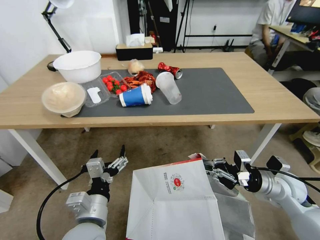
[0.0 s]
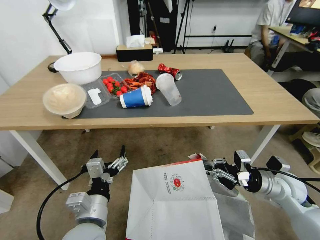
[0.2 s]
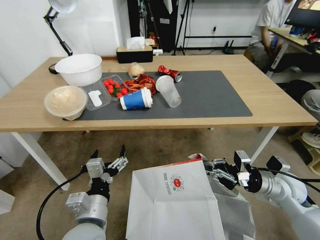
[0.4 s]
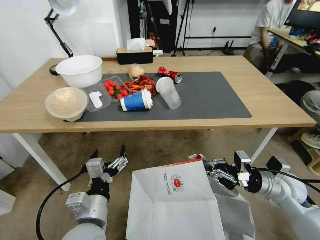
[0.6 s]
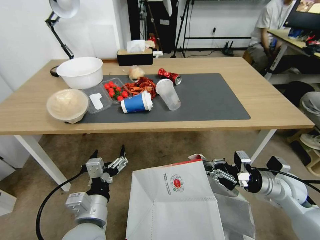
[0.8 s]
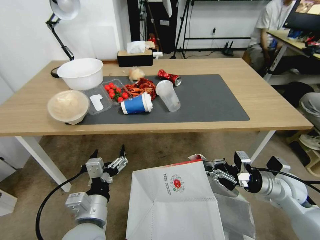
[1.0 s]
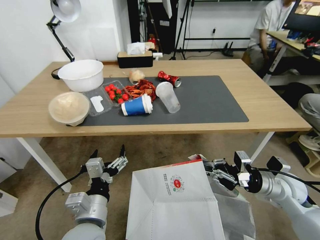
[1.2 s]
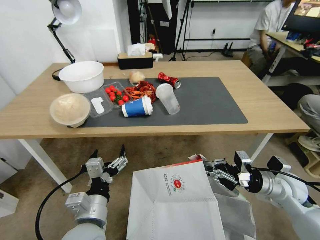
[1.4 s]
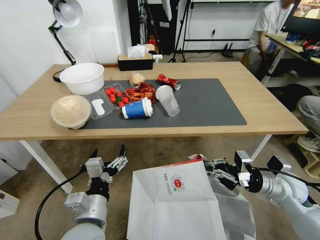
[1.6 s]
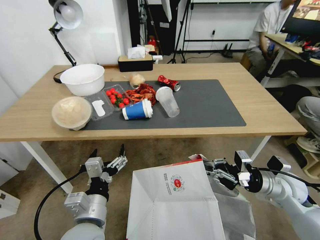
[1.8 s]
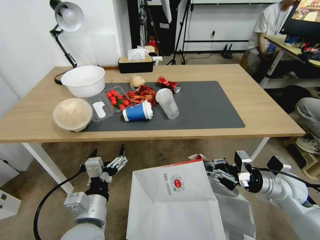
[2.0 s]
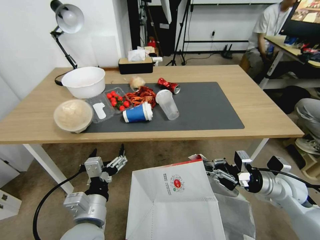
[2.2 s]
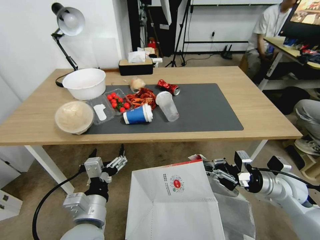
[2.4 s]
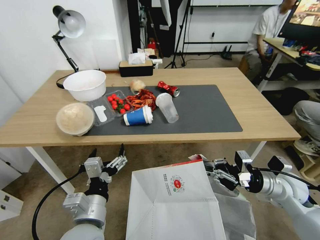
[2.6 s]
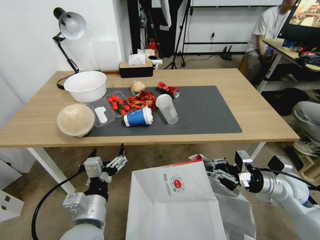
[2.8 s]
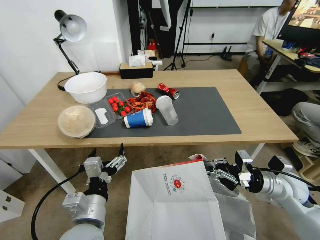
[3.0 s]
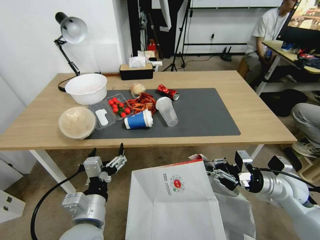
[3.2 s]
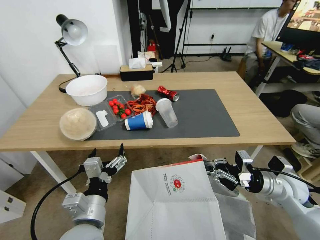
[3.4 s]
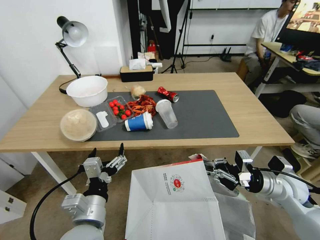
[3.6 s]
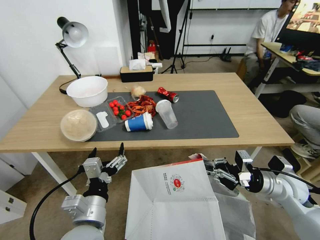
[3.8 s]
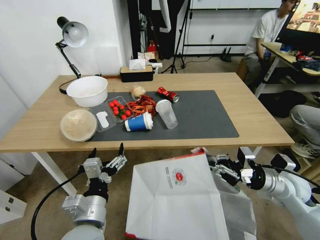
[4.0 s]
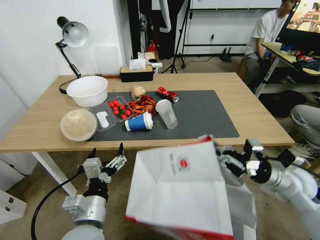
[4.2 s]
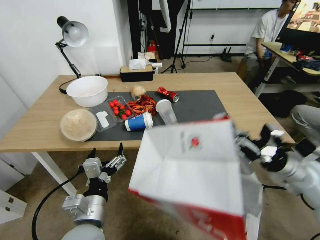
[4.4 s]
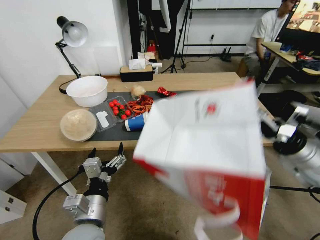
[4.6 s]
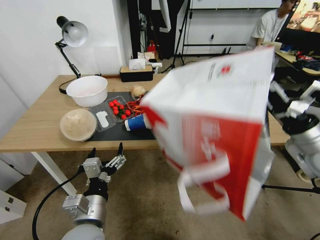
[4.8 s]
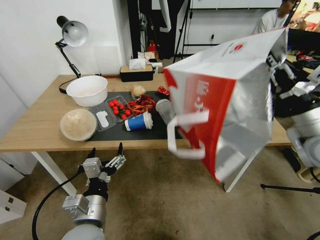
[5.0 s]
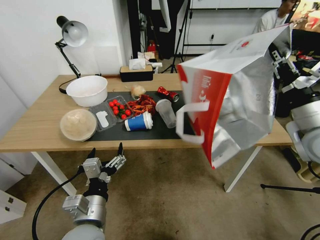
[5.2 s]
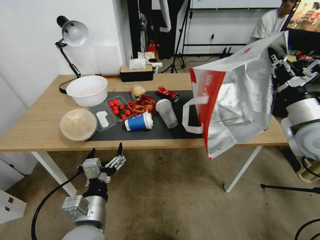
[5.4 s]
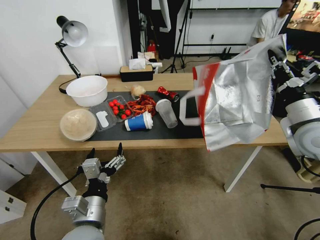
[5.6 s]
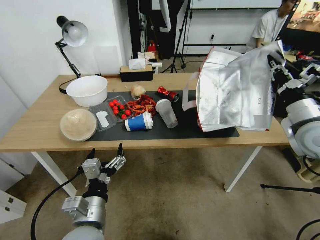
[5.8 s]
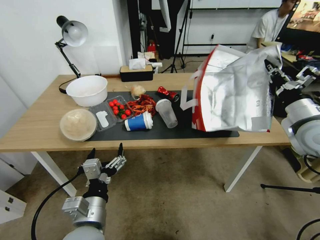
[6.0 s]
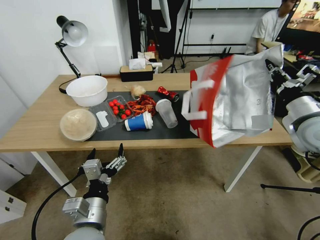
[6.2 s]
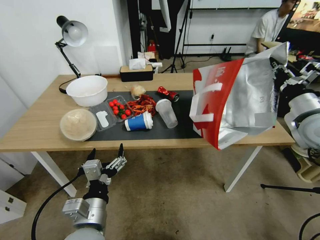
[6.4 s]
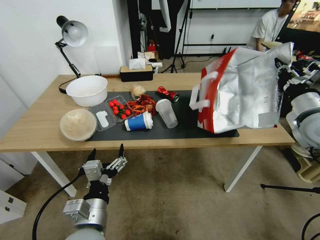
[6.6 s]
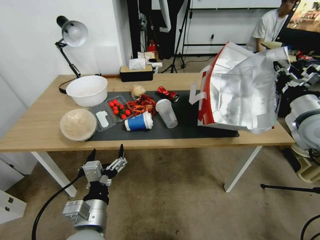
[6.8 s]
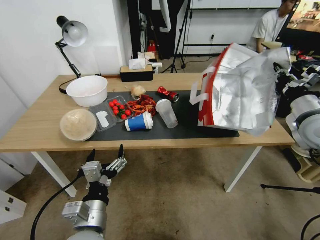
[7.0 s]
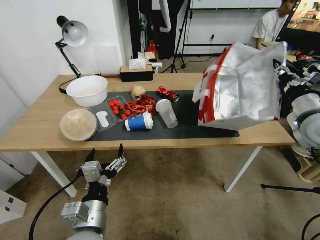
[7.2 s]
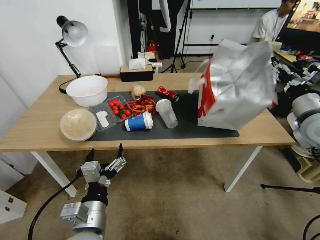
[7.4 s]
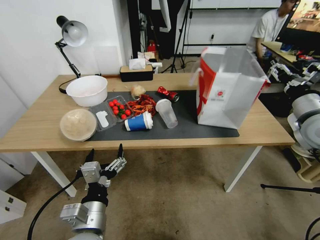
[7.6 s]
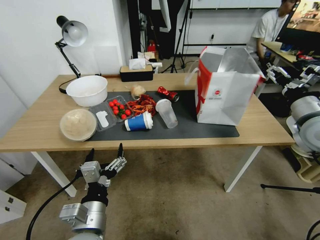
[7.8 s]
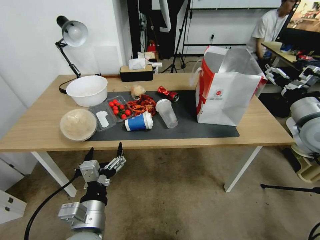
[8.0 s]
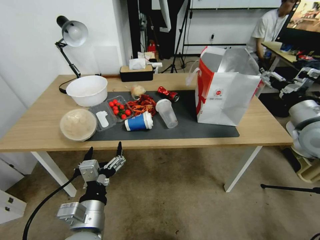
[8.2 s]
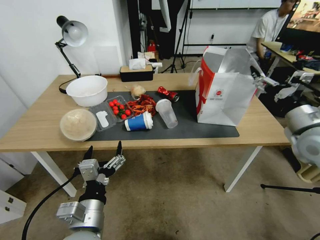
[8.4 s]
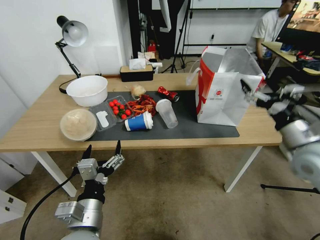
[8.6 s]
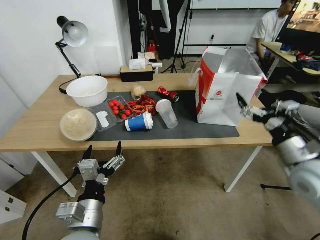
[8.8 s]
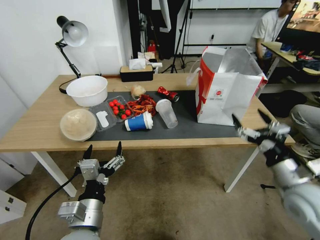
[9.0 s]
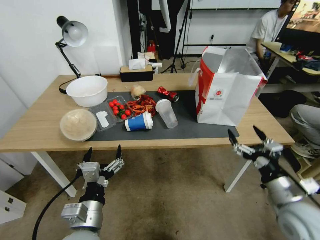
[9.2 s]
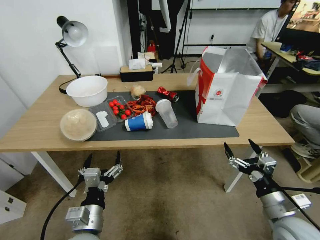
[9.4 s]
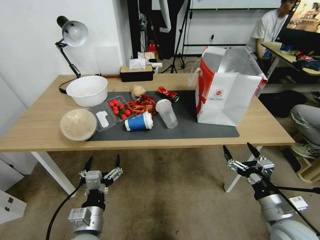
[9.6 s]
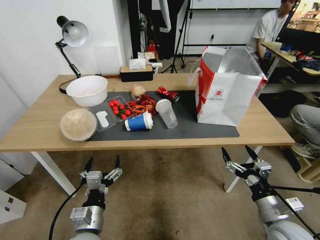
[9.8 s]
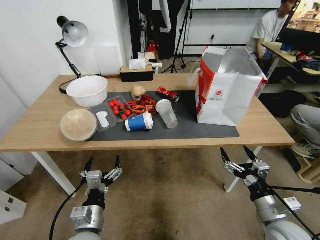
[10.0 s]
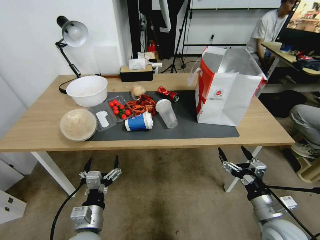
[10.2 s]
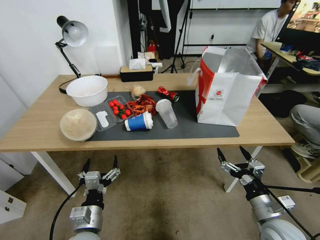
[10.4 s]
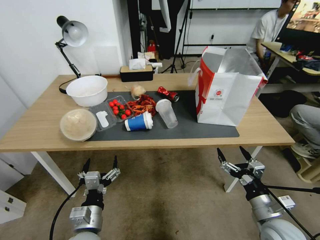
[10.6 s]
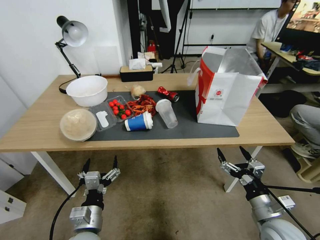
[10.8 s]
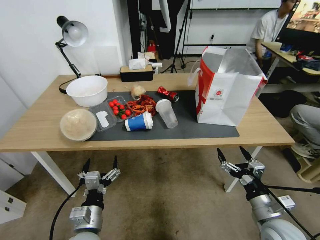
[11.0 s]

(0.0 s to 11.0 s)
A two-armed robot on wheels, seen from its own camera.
Task of the whole recording: Pick up the food delivery bag from the floor and place it on the table.
3.2 s - 4.8 s: The right gripper goes approximately 15 cm upward.
4.8 s - 6.2 s: The right gripper shifts roughly 5 cm forward.
6.2 s - 7.8 s: The right gripper opens its fingers.
7.8 s - 9.4 s: The right gripper is displaced downward and backward by roughly 25 cm, while the left gripper travels downward by approximately 5 cm.
9.4 s - 11.0 s: The grippers make only small movements.

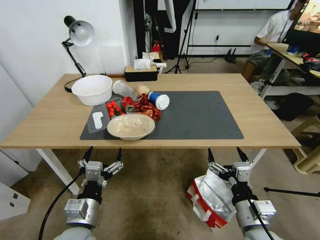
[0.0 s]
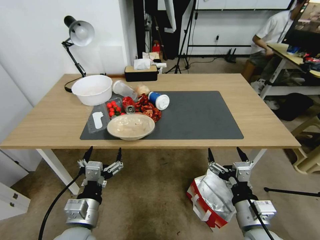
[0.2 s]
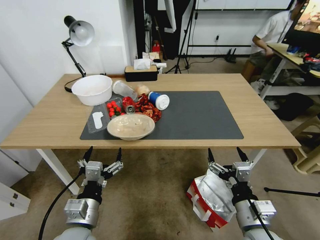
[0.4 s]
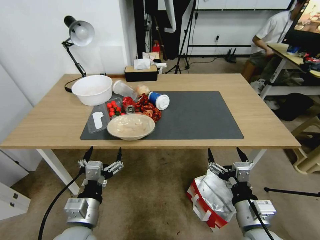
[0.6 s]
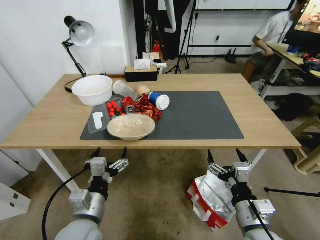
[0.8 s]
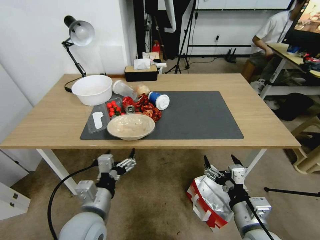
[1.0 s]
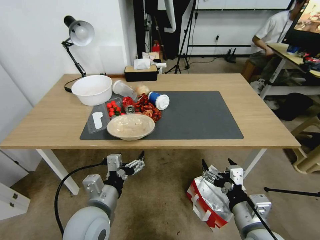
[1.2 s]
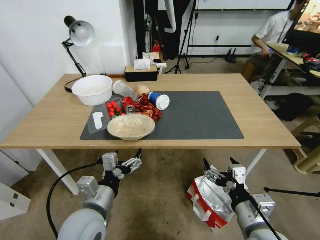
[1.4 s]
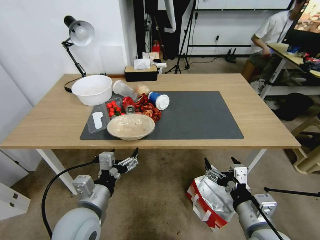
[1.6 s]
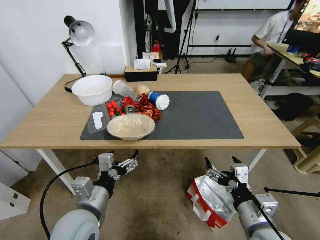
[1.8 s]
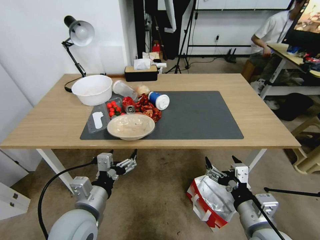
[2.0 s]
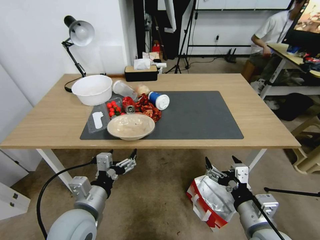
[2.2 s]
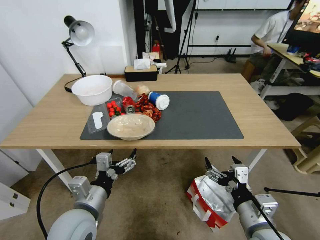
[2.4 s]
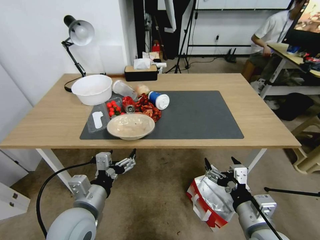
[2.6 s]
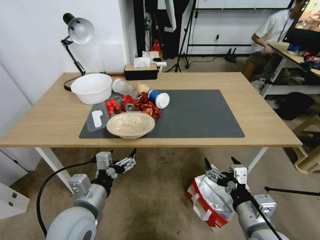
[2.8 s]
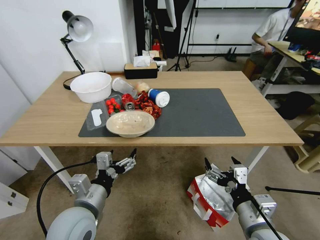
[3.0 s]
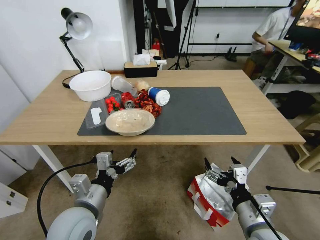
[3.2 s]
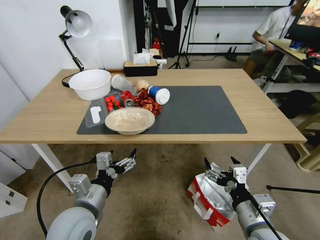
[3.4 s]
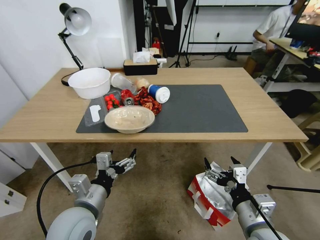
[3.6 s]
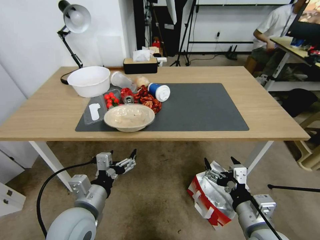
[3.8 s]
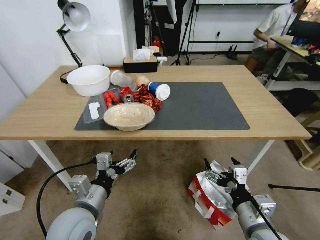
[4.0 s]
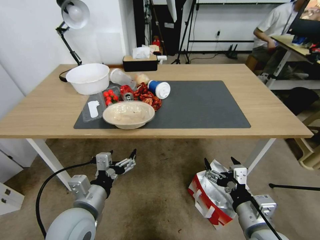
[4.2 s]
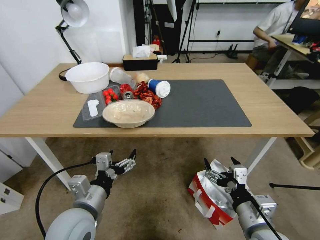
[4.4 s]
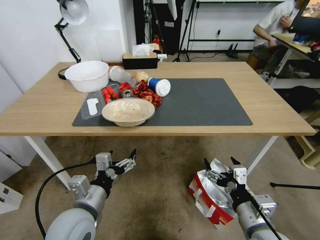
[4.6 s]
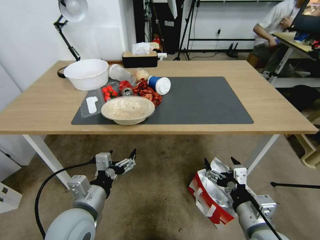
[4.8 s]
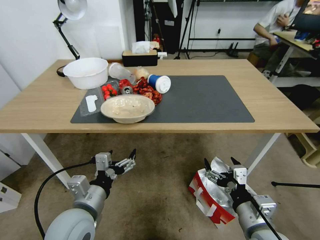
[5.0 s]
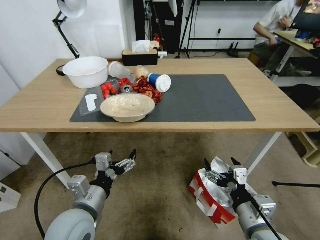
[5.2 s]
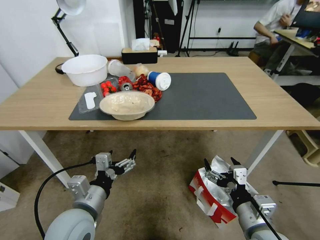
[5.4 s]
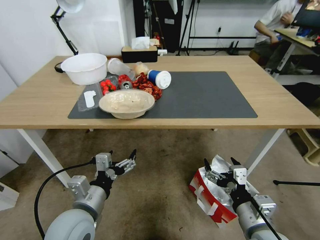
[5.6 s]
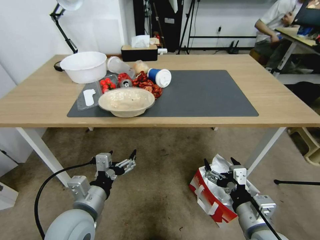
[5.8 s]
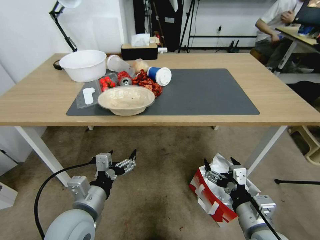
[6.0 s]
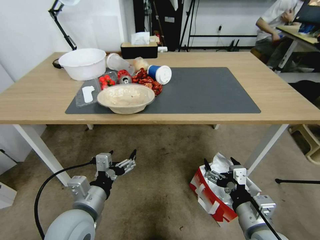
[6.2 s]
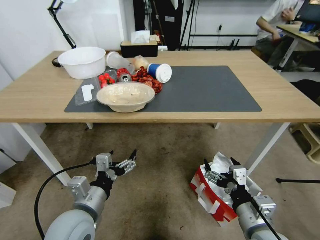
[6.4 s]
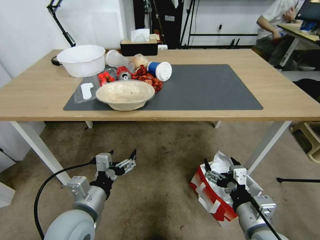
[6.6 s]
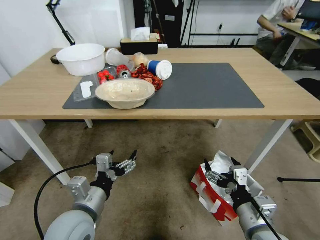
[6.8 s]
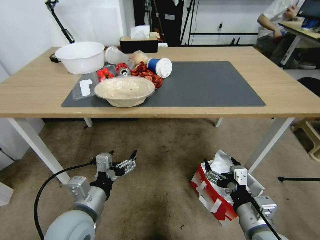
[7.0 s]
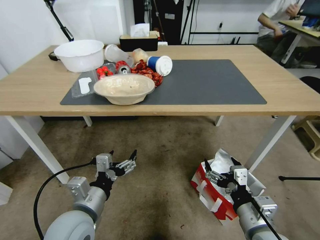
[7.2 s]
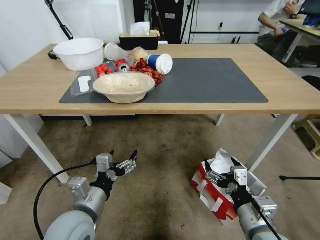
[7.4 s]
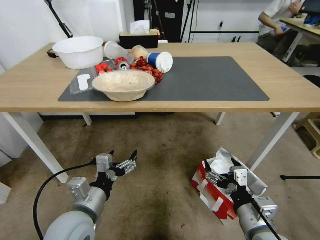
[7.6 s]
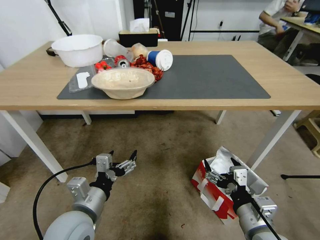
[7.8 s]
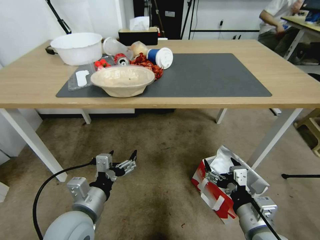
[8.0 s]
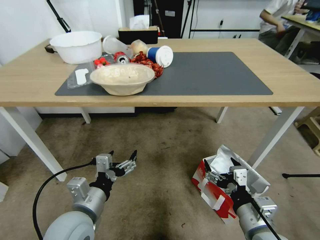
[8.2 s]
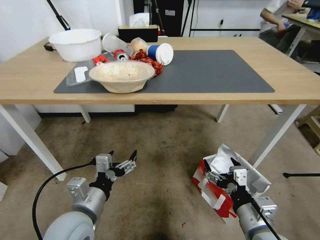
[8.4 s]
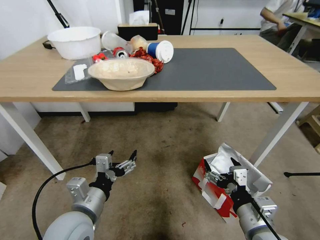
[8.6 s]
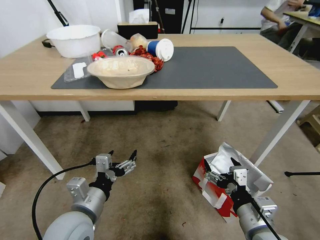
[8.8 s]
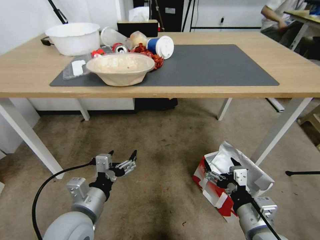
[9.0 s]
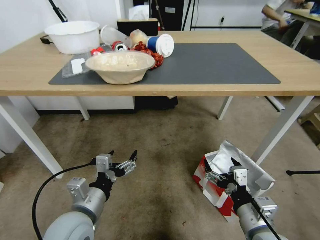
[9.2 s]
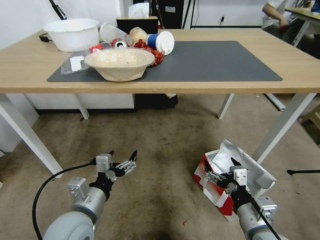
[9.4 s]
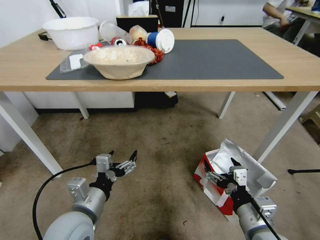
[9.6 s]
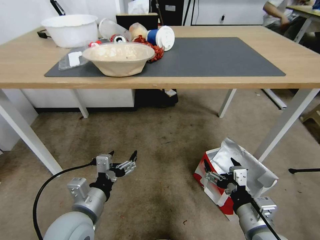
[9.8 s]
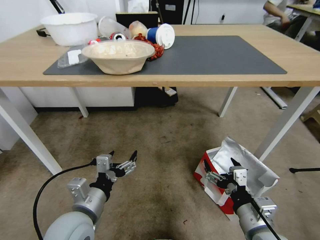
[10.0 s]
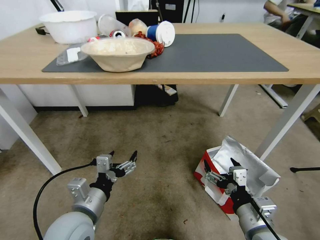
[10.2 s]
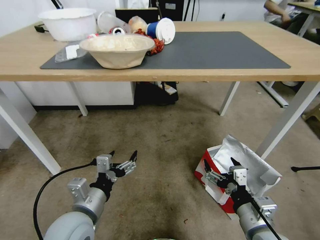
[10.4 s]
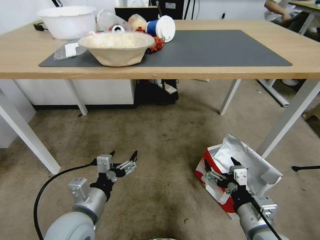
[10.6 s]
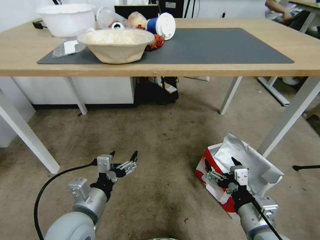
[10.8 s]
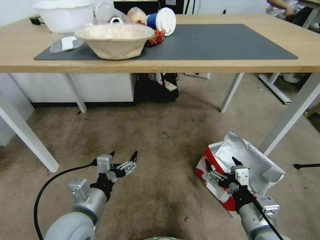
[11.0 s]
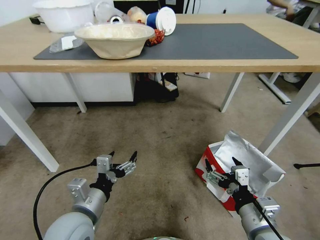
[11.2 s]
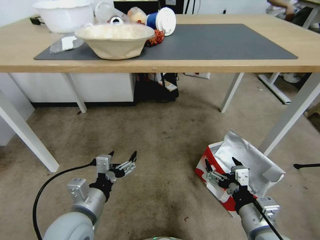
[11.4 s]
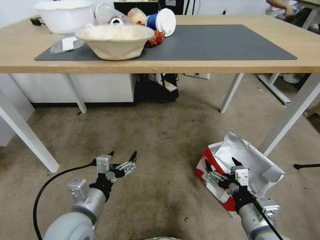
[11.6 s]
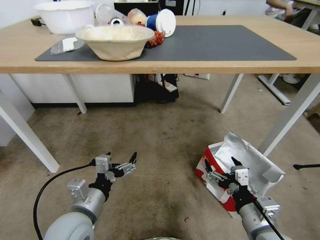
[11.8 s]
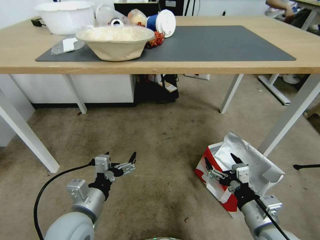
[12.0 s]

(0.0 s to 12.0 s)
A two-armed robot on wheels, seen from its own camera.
Task of the whole recording: Pick up the food delivery bag from the floor and place it on the table.
1.6 s - 3.0 s: Neither gripper changes place.
